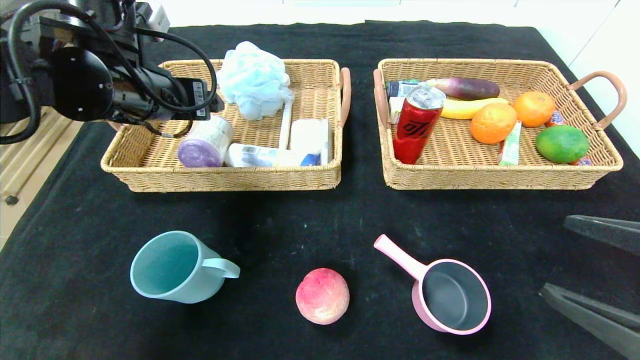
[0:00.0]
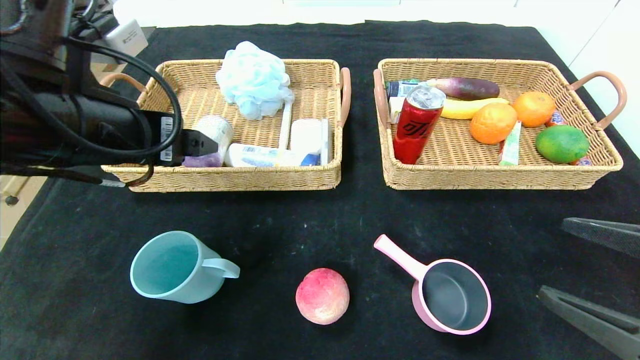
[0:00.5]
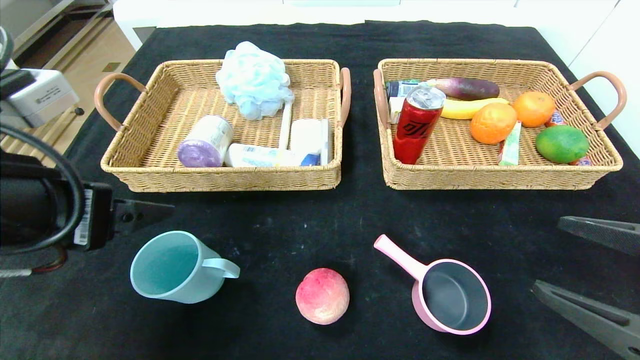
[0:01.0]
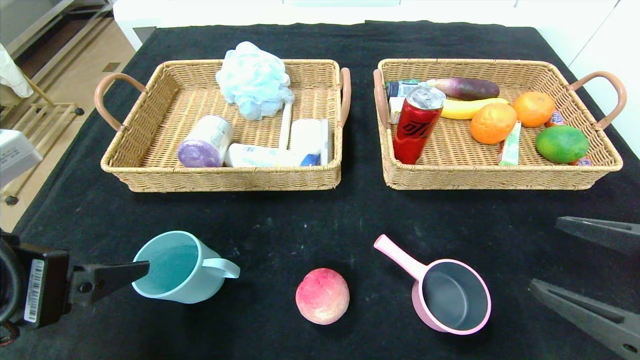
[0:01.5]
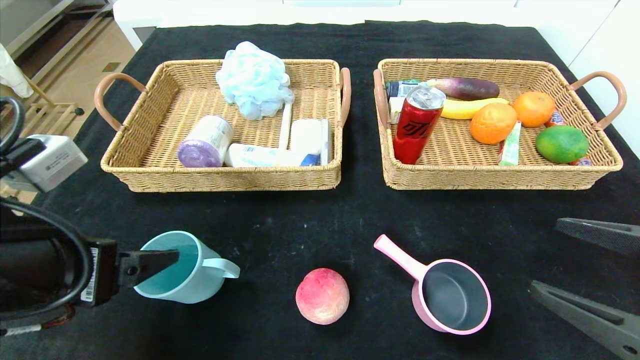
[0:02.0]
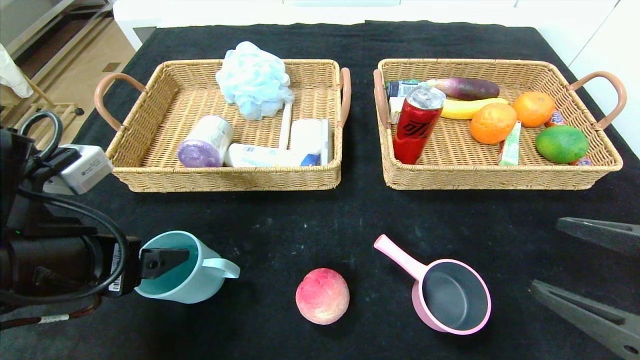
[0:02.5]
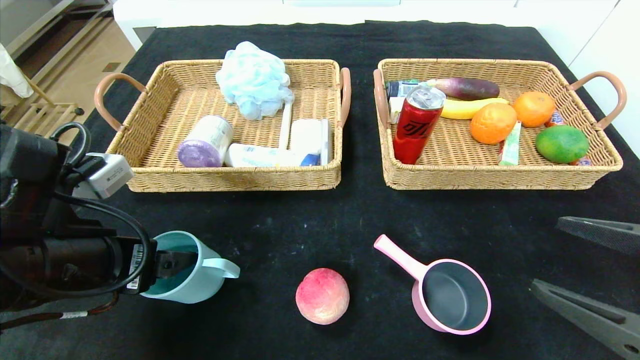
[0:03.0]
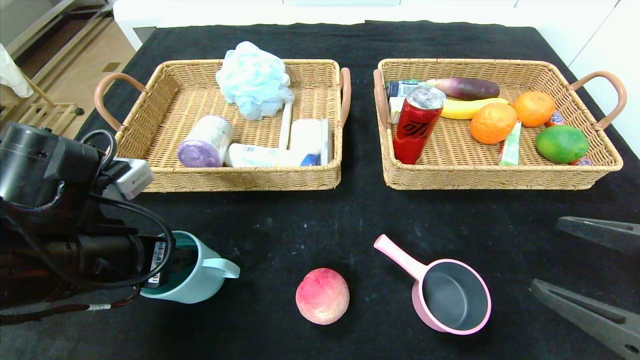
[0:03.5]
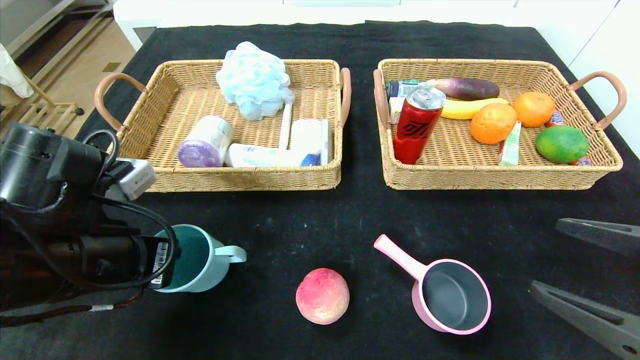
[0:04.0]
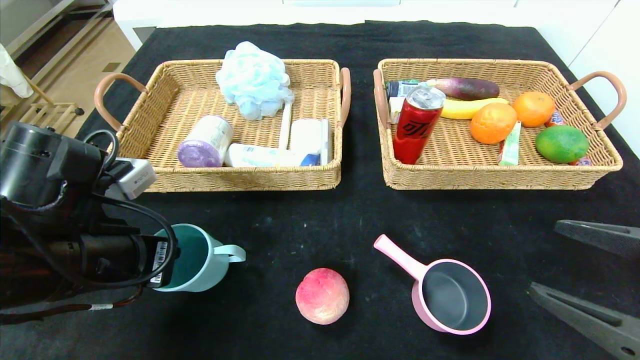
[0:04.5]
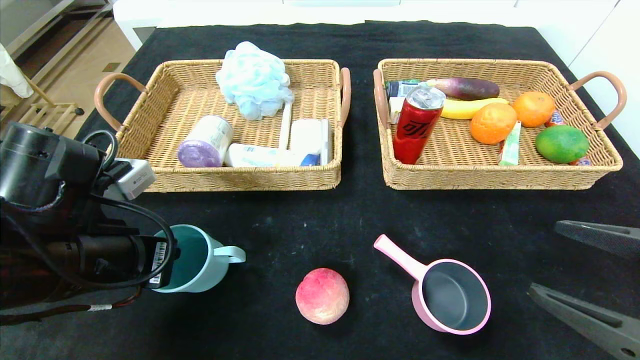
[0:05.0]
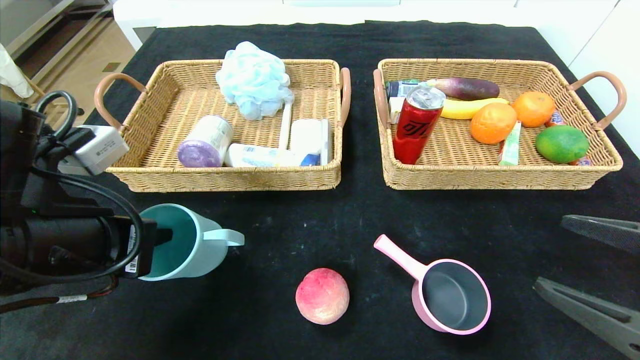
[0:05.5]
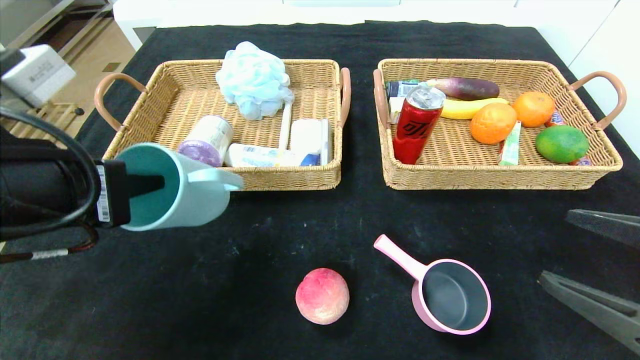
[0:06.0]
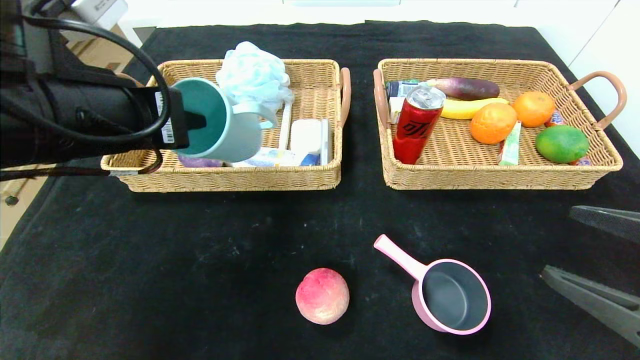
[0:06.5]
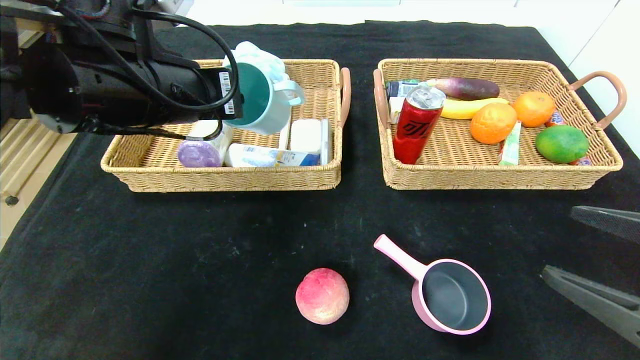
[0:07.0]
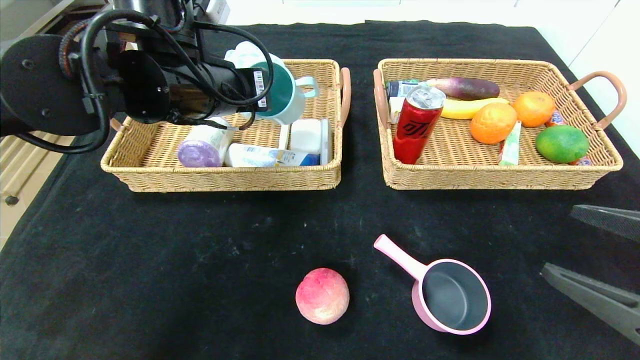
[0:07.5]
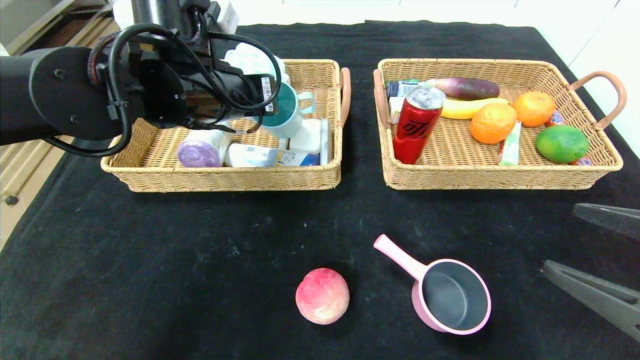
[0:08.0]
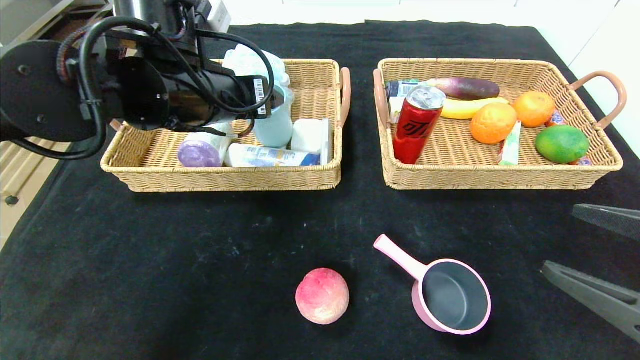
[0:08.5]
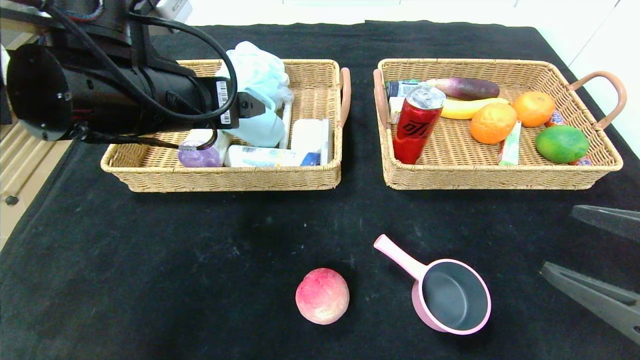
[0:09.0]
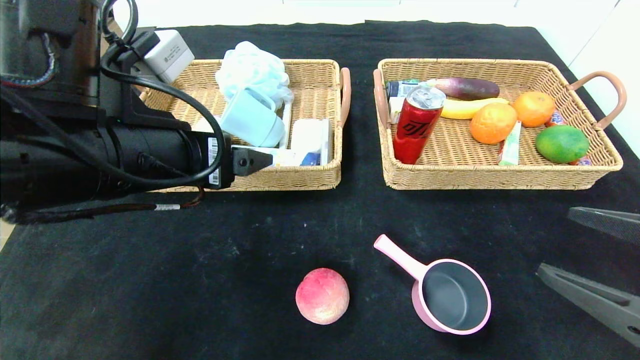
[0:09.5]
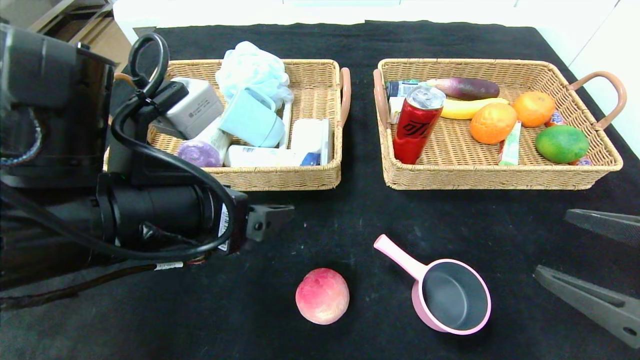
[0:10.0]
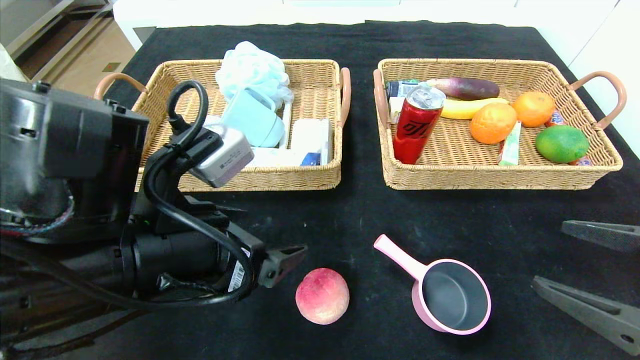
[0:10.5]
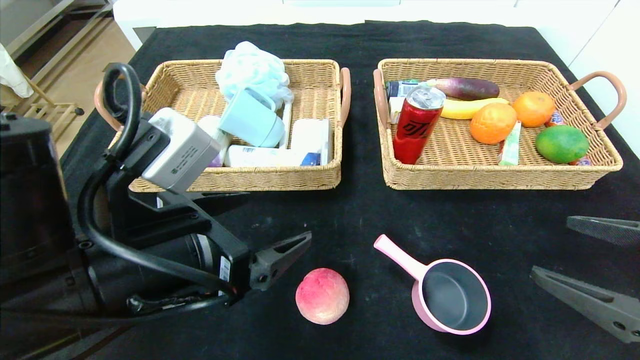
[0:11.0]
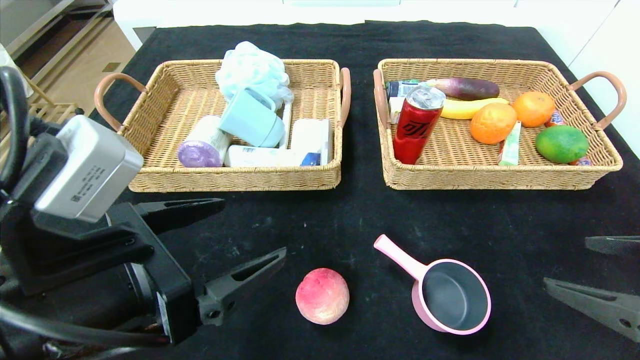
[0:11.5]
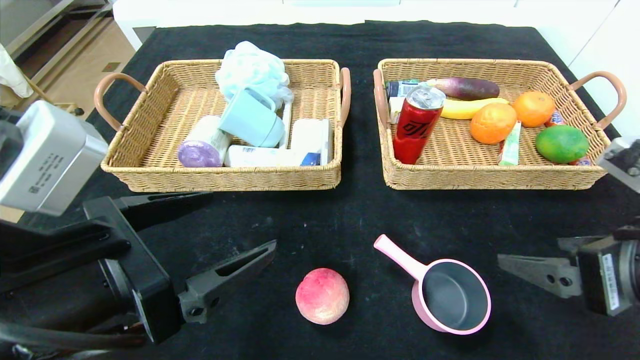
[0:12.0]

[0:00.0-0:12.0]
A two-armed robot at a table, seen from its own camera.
Step, 0:01.5 to 0:10.0: Pick up the blue cup and put it in the left basket.
0:00.0 to 0:02.0: The left gripper is displaced backward and downward by about 20 cm.
0:02.0 to 0:04.0: The left gripper travels forward by roughly 5 cm, and closes.
0:04.0 to 0:06.0: The left gripper is displaced upward by about 10 cm.
0:06.0 to 0:08.0: The left gripper heads forward and to the right, covering approximately 20 cm.
0:08.0 to 0:10.0: The left gripper travels backward by approximately 15 cm, and opens up.
0:10.0 to 0:12.0: The right gripper moves some 5 cm; the left gripper is displaced backward by approximately 5 cm.

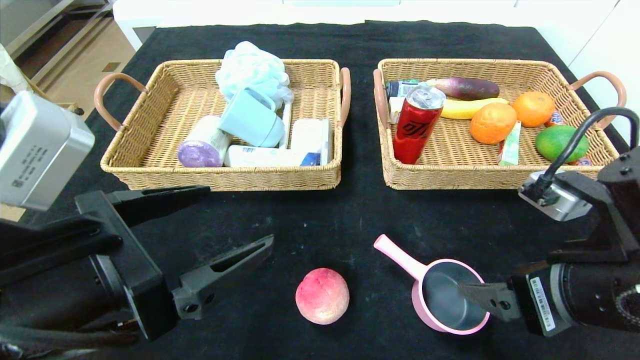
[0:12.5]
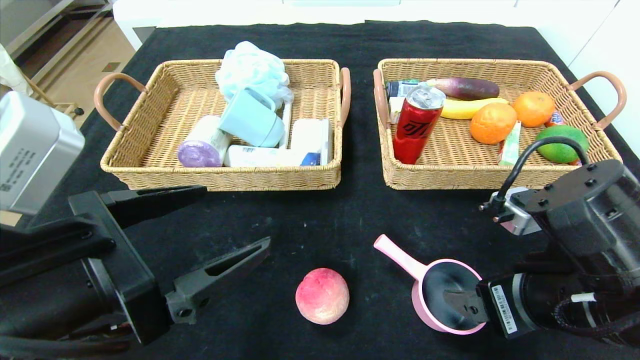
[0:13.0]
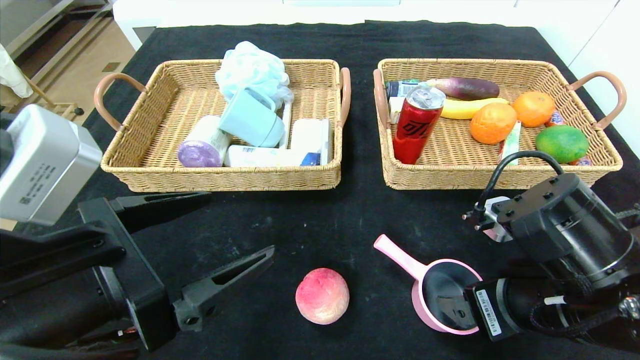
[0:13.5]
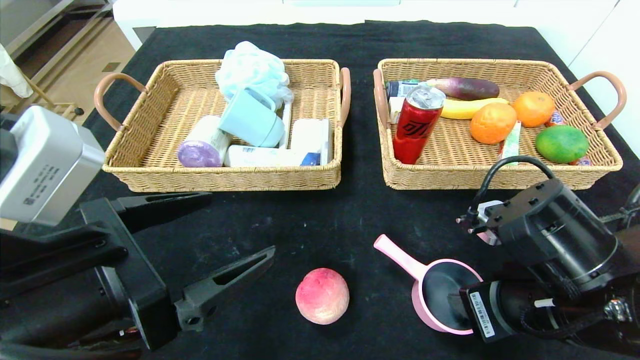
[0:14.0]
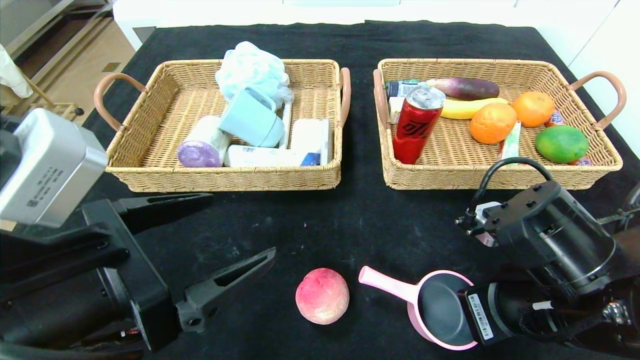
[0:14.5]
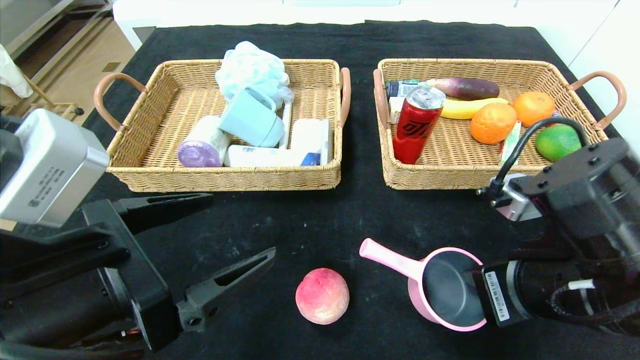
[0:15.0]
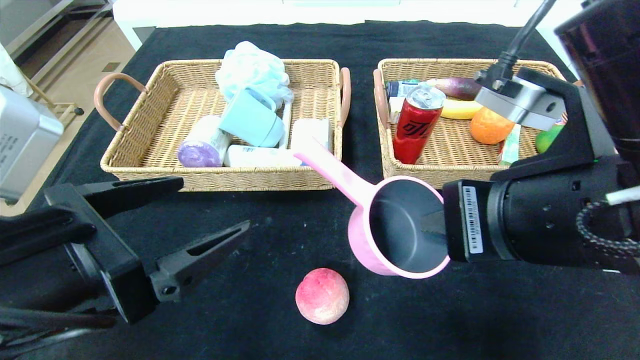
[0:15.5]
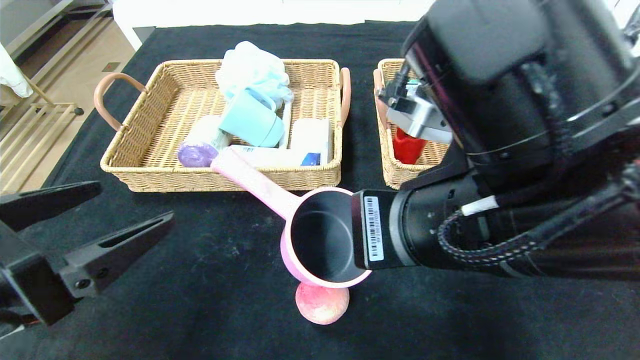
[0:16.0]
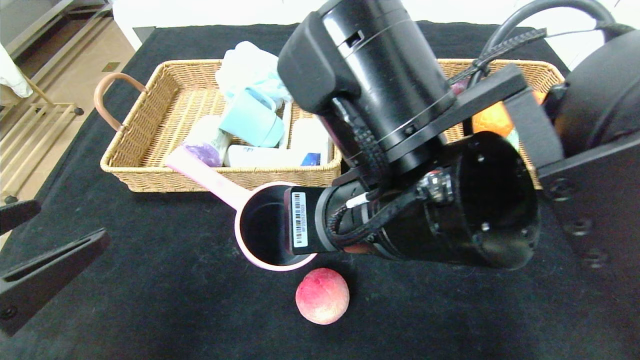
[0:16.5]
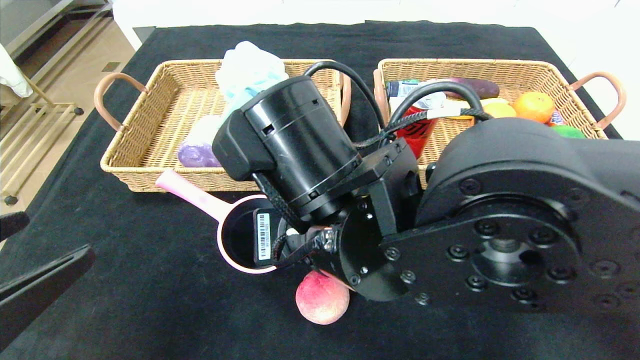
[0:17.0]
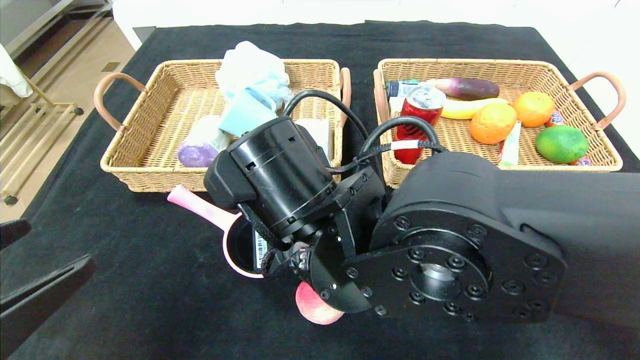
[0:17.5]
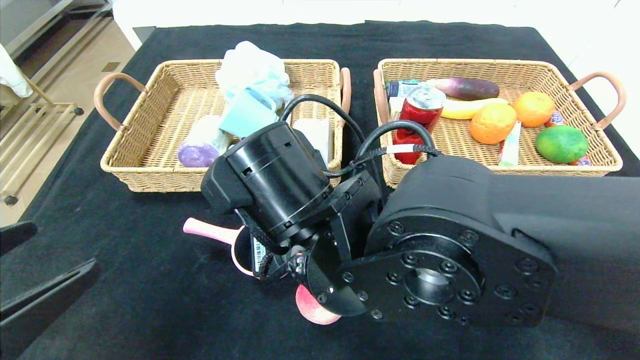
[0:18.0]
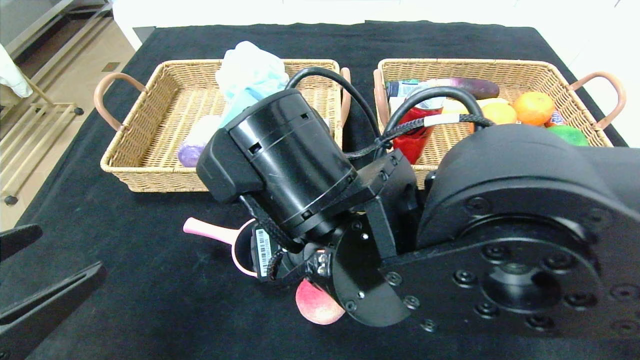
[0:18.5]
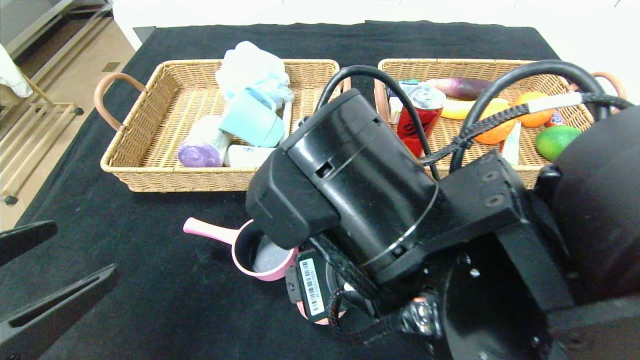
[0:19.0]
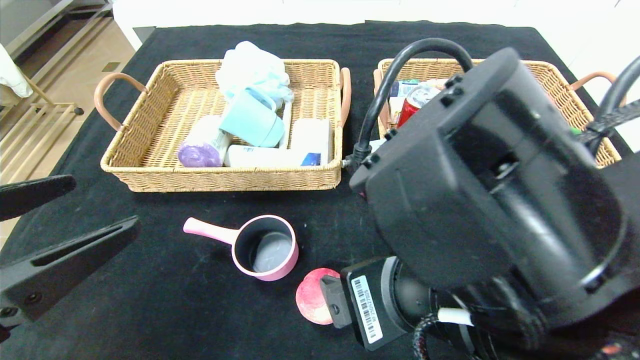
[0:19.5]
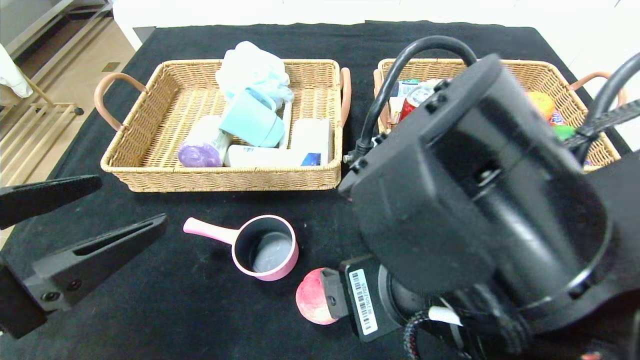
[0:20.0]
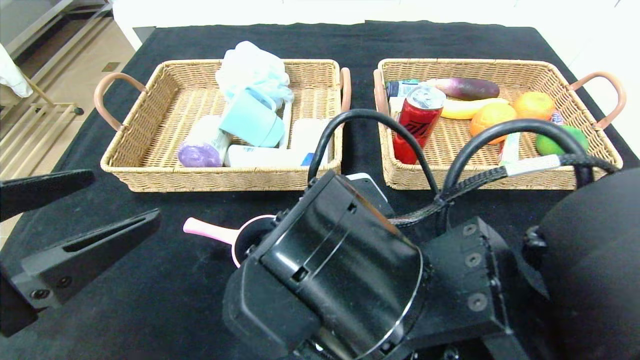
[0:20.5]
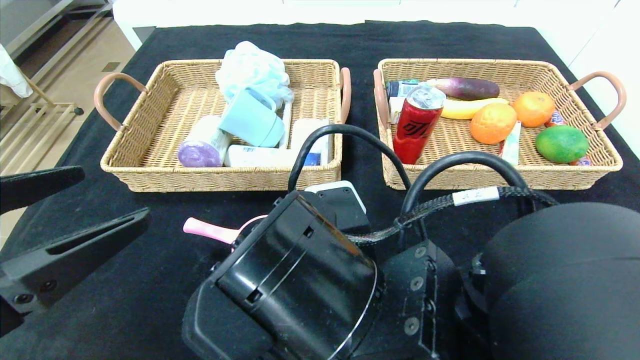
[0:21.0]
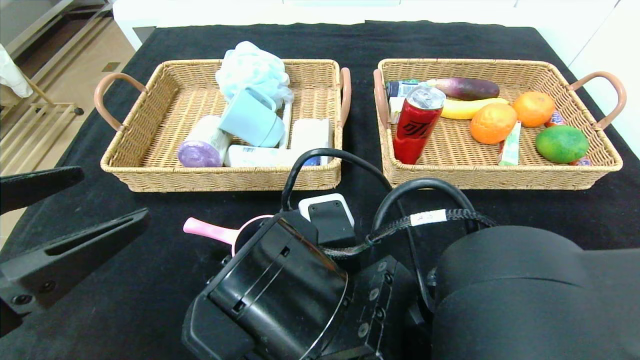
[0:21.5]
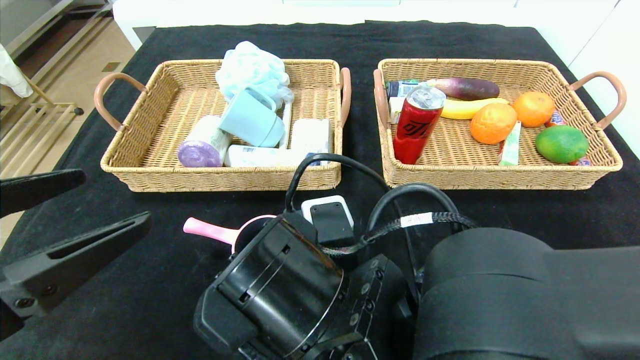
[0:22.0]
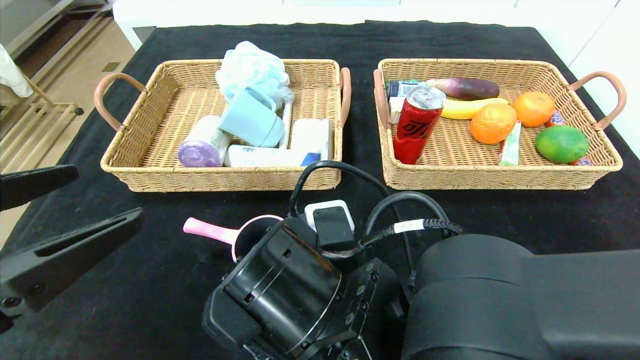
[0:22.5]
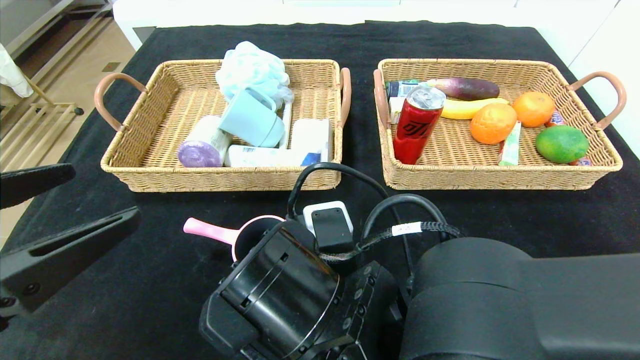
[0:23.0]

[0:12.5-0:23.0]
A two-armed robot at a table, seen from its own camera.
Step, 0:12.5 to 0:19.5: Place the pink pot in the center of the table.
0:12.5 to 0:14.5: The right gripper ends up roughly 5 cm from where it was, and closes.
0:14.5 to 0:16.5: The left gripper travels to the left and backward by roughly 10 cm. Meanwhile the right gripper is displaced to the left and upward by roughly 20 cm.
0:16.5 to 0:19.0: The right gripper opens.
0:21.0 to 0:23.0: The right gripper closes up.
